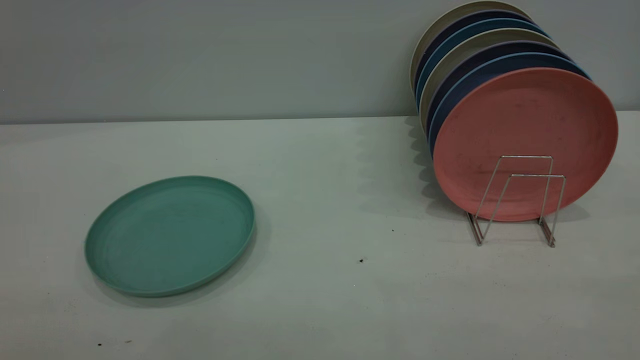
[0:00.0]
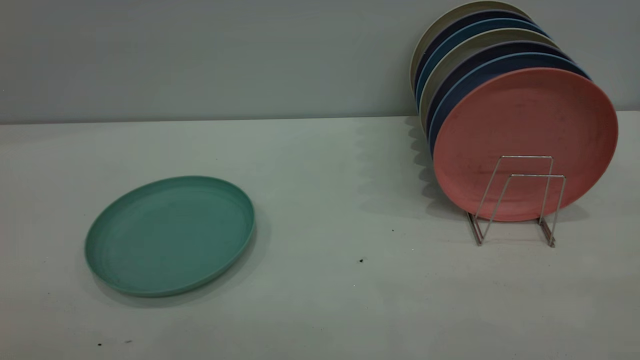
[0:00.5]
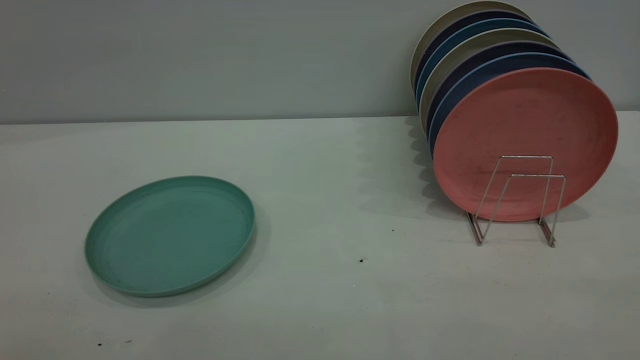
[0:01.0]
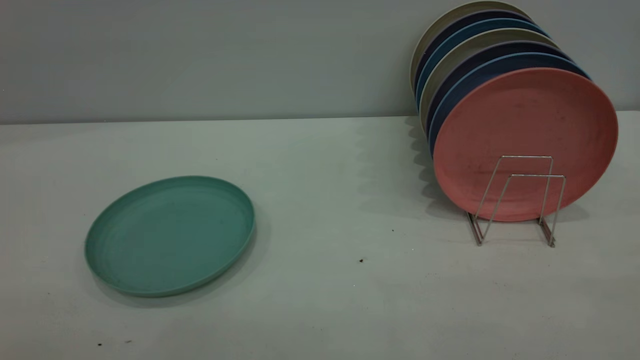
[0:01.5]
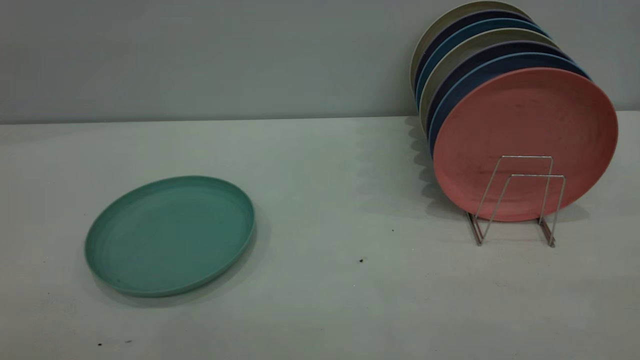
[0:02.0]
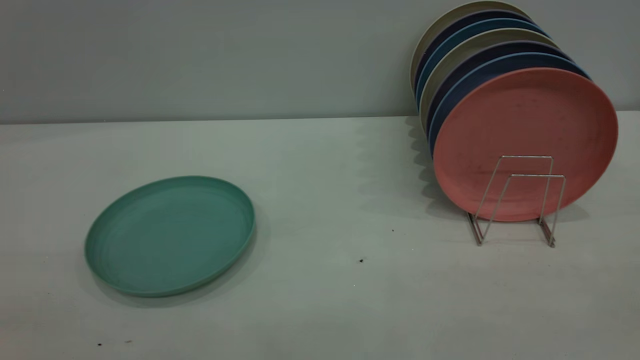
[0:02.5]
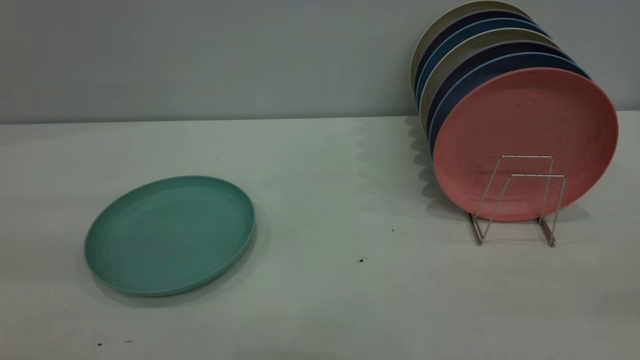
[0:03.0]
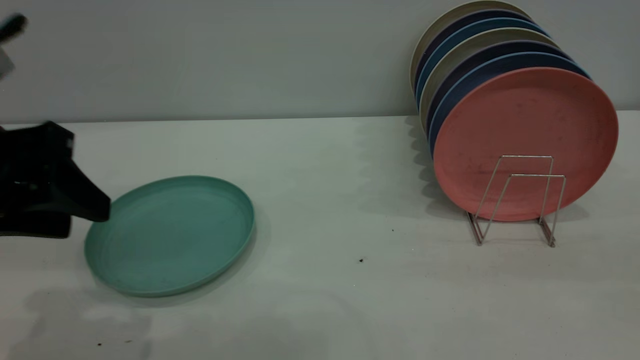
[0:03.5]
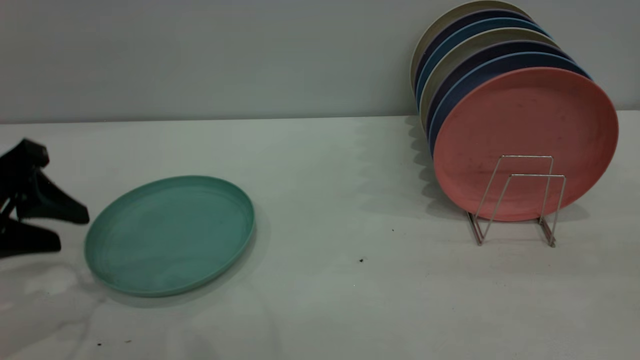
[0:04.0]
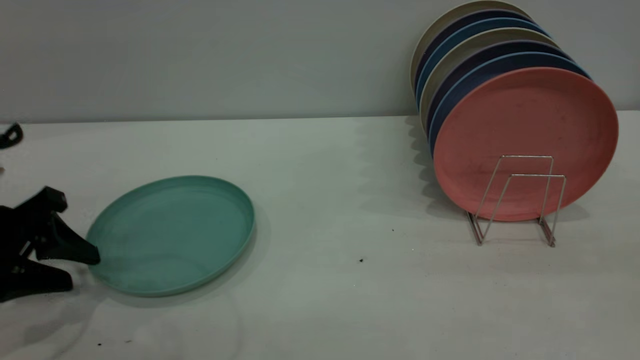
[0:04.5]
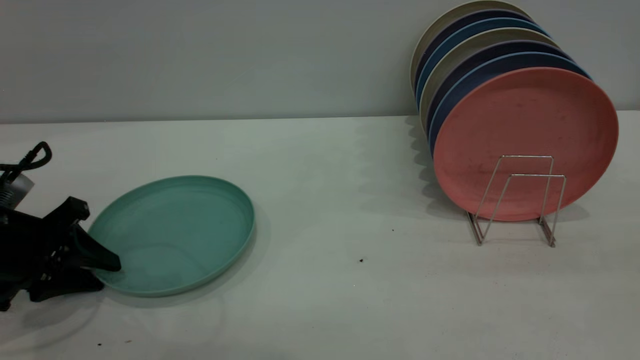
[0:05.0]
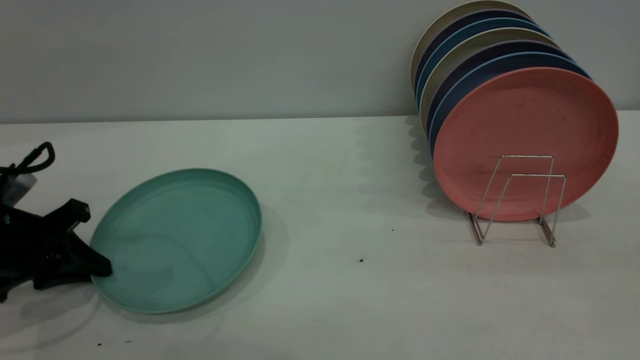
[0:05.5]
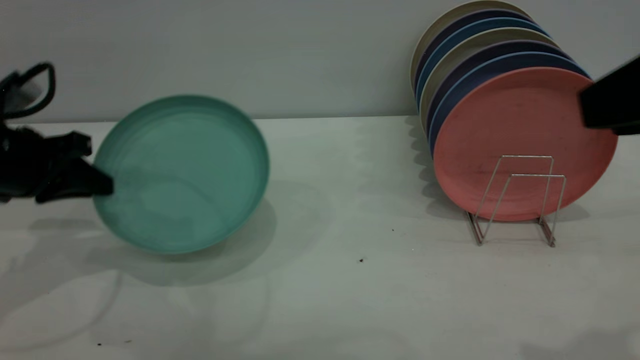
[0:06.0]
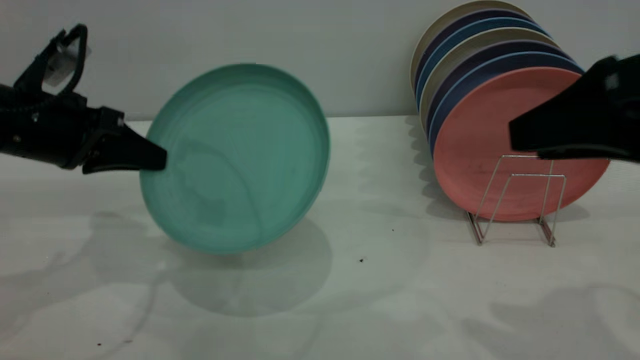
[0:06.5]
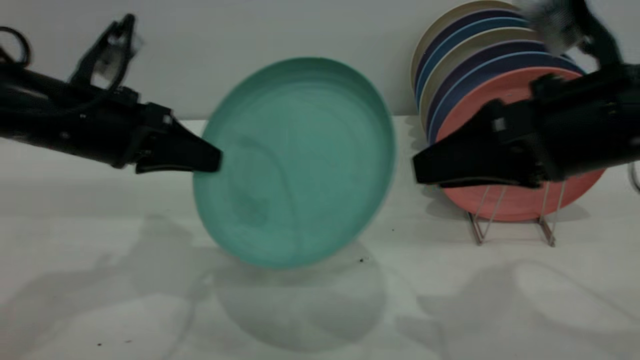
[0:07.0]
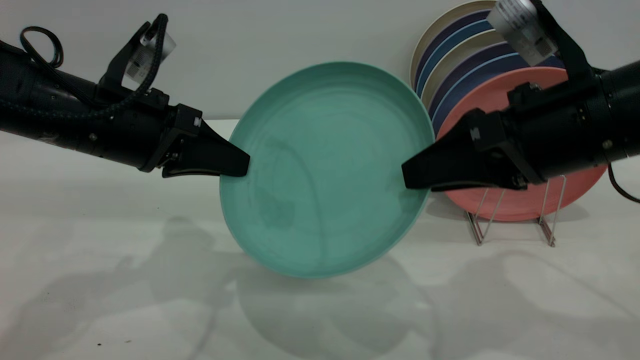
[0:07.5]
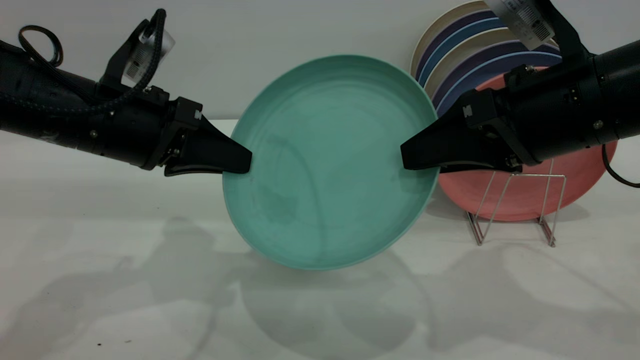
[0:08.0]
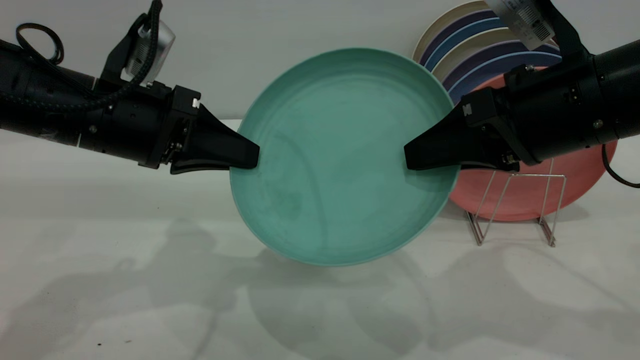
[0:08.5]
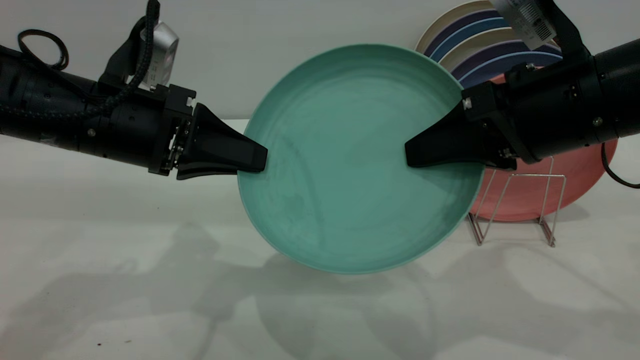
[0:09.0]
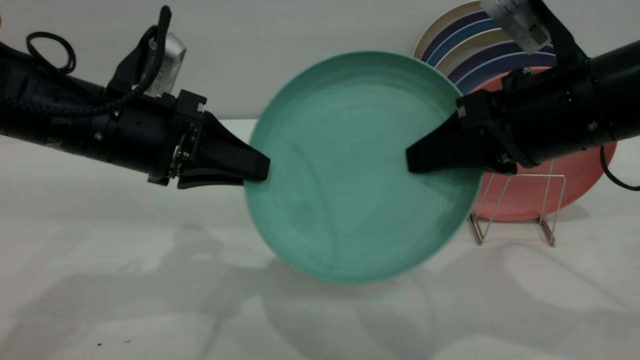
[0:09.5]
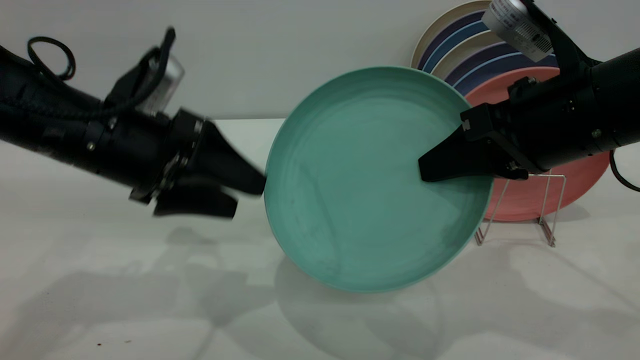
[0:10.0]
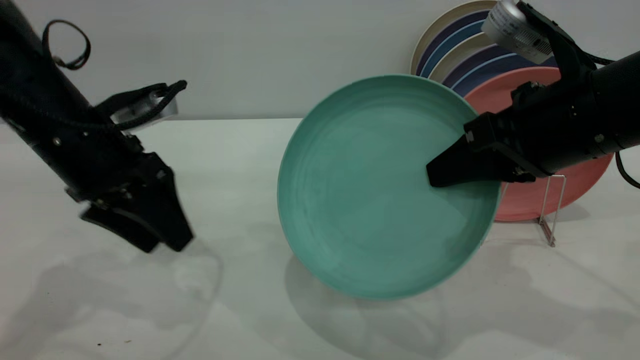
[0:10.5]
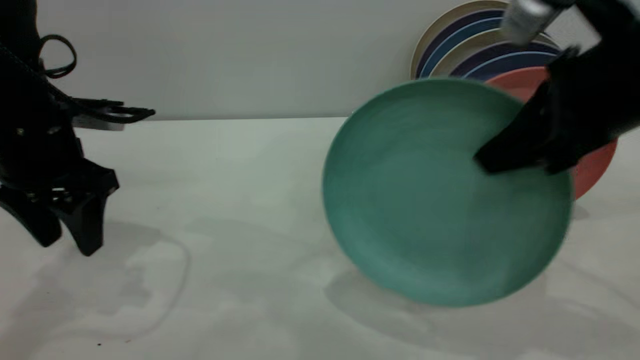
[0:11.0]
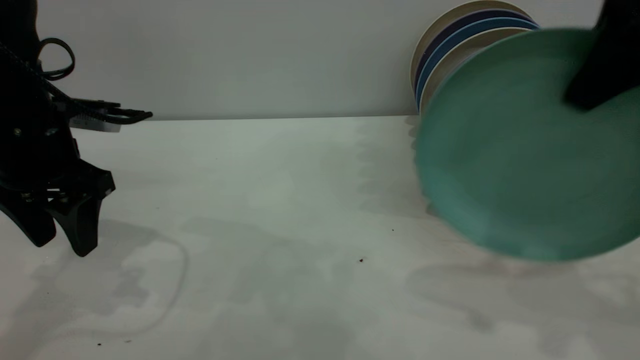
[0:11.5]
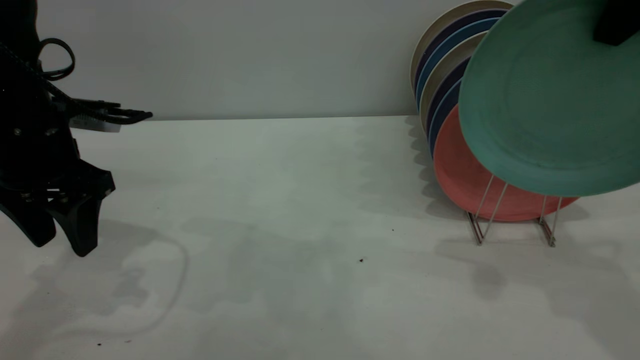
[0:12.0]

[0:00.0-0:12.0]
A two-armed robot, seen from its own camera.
Task of the whole recording: the left gripper grasp the green plate, the left gripper pass the green plate to the right gripper, and the right gripper place the green plate on the plate rack.
Step, 0:00.0 to 0:05.5: Pick up the plate with the left gripper.
Step, 0:06.0 to 0:10.0: Pass the plate from the left gripper to the right gripper.
0:00.0 to 0:02.0: Both grippers stay put.
0:02.0 to 0:04.0: The left gripper goes about 35 cm forward and downward.
0:04.0 to 0:06.0: The right gripper shifts by about 5 cm; the left gripper goes approximately 10 cm forward, travels downward and back again, approximately 10 cm each way, and closes.
0:06.0 to 0:08.0: The right gripper heads forward, downward and to the left, covering approximately 15 cm, while the left gripper travels to the right by about 15 cm.
0:08.0 to 0:10.0: The right gripper closes its fingers. The left gripper opens its fingers.
0:10.0 to 0:12.0: The left gripper goes approximately 5 cm to the left, while the right gripper moves upward, about 15 cm.

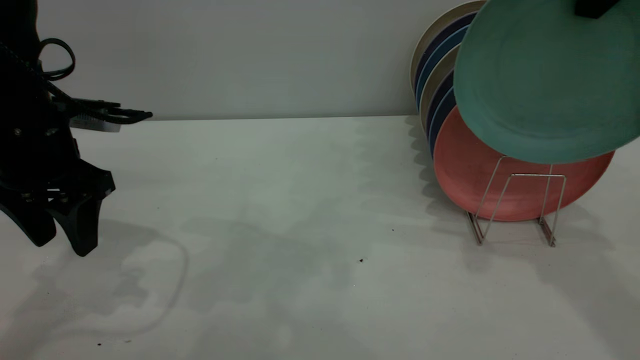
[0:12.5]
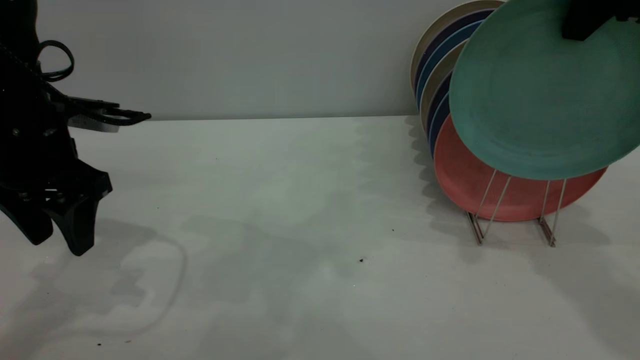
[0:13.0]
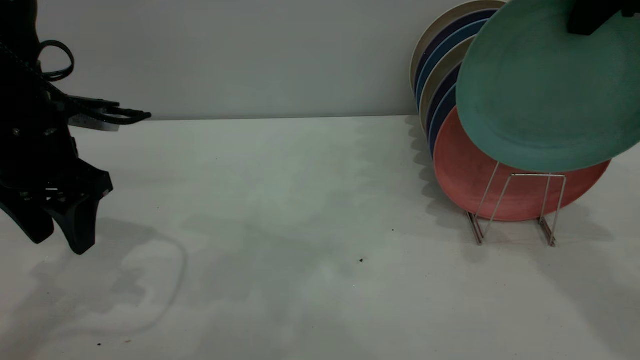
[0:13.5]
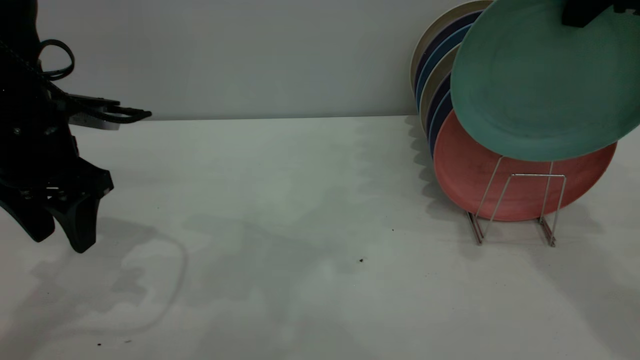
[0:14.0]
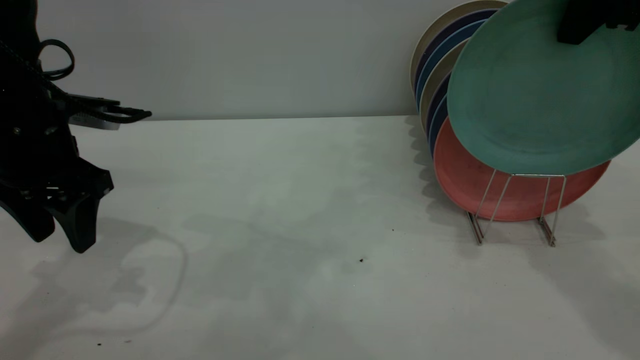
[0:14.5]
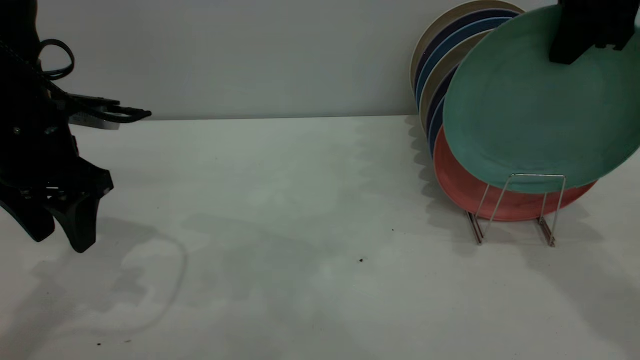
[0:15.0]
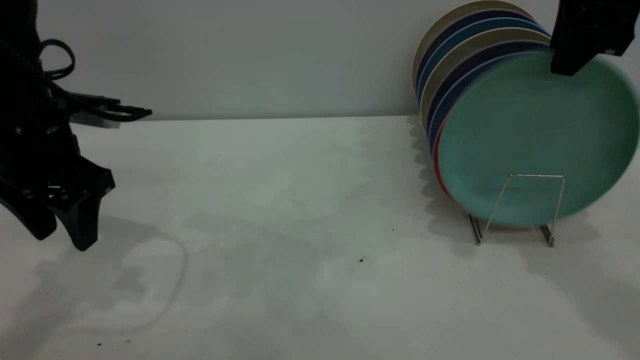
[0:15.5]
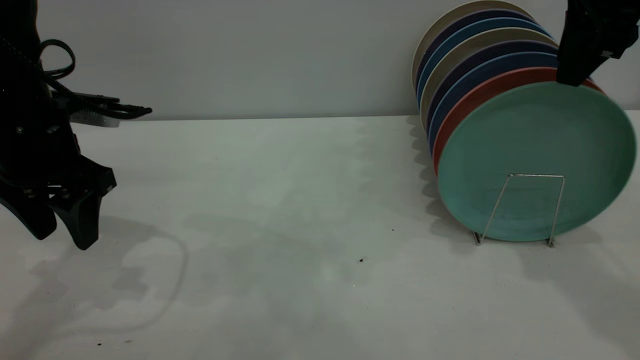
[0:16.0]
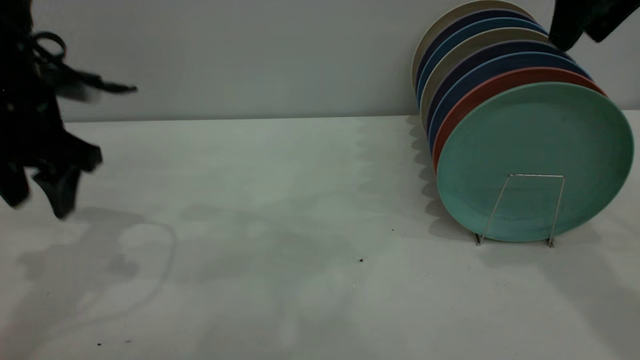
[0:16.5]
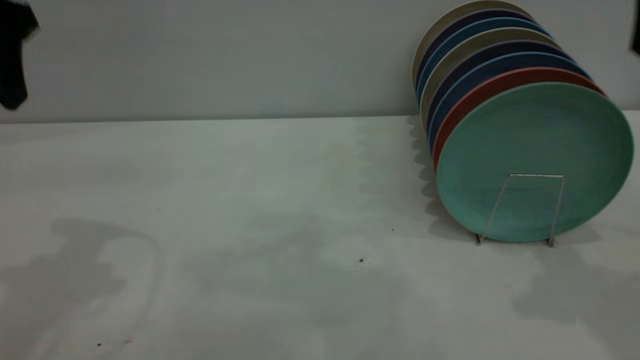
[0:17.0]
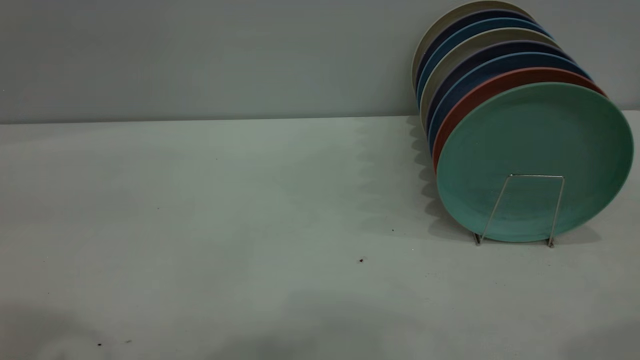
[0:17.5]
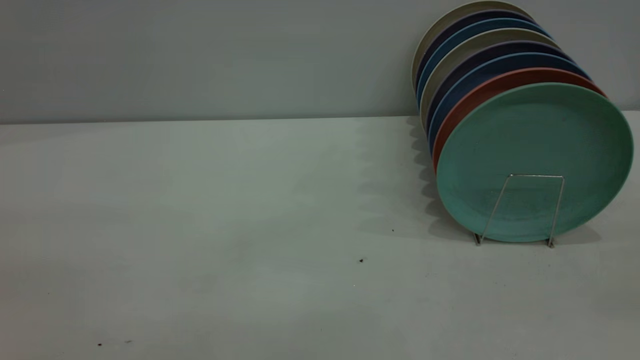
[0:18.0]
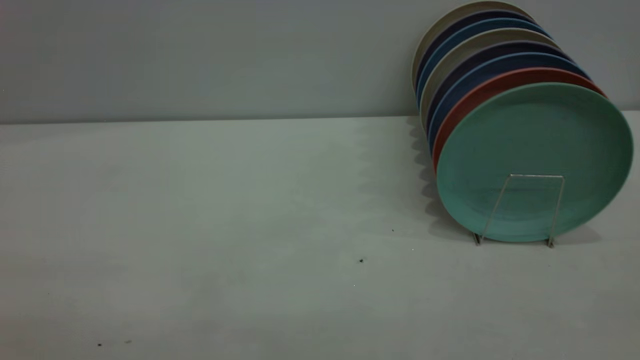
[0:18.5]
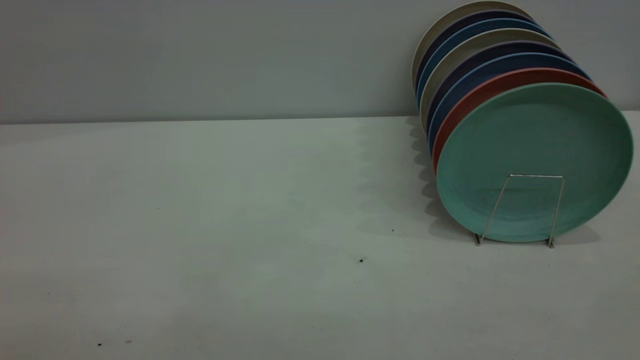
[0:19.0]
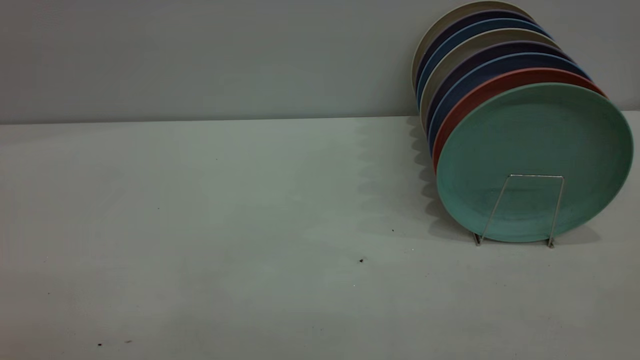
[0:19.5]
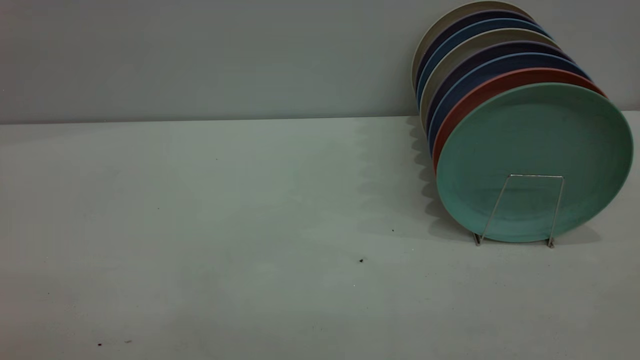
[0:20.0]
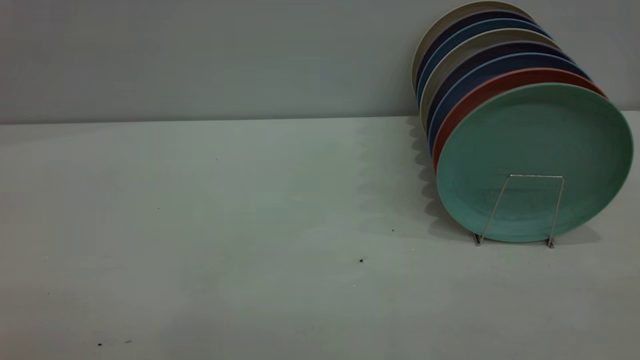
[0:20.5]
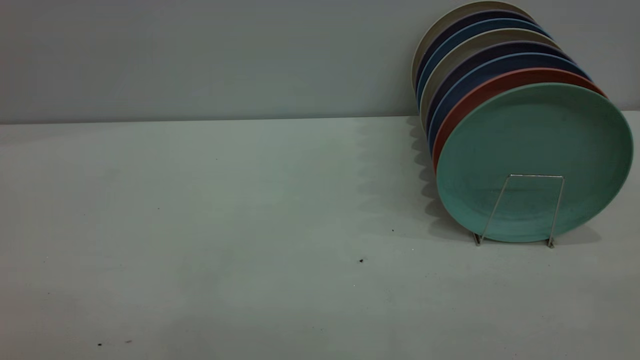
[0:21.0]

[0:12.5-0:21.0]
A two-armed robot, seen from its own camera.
Task of the whole recording: the left gripper grasp the green plate, the left gripper pass the green plate to the right gripper, and the right gripper place the green plate on the plate rack.
Step, 0:12.5 to 0:16.5: Place the plate on the shelf.
0:12.5 to 0:14.5: The grippers stay close to where they were, moving slightly.
0:14.5 to 0:16.5: The right gripper opens up.
0:16.5 to 0:19.0: The two grippers go some 35 cm backward.
